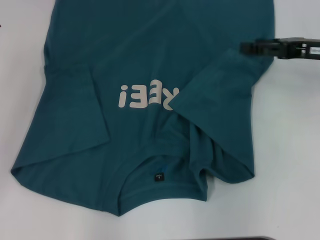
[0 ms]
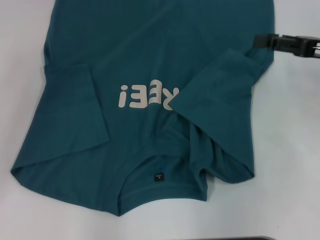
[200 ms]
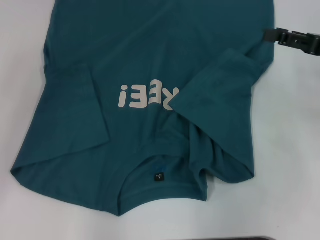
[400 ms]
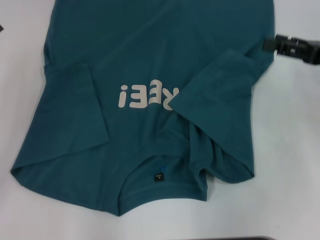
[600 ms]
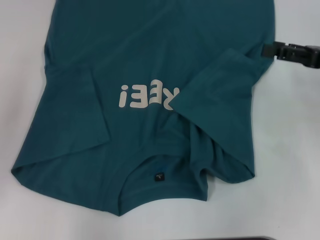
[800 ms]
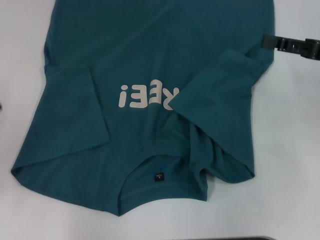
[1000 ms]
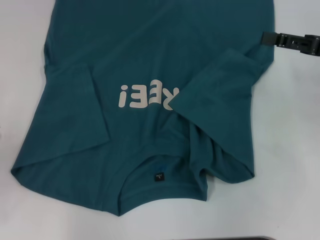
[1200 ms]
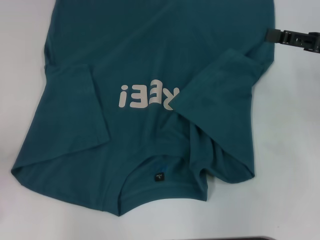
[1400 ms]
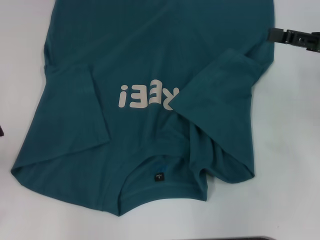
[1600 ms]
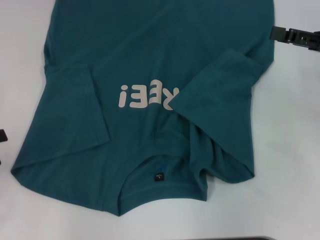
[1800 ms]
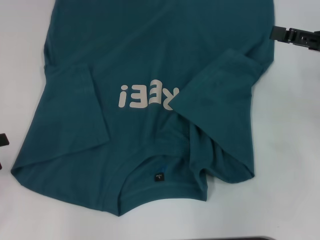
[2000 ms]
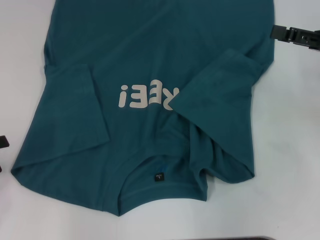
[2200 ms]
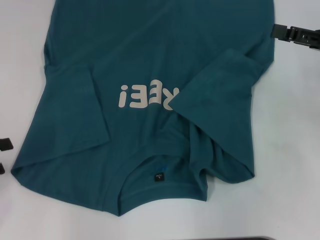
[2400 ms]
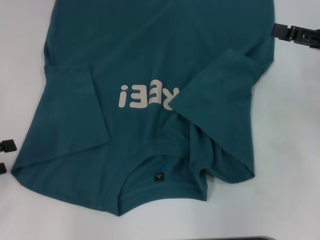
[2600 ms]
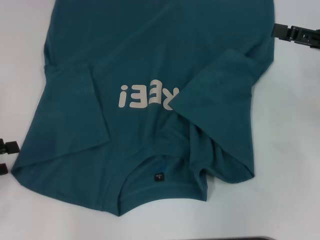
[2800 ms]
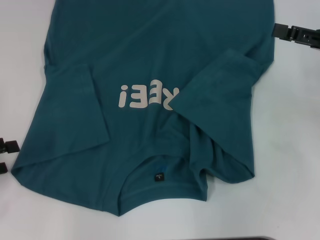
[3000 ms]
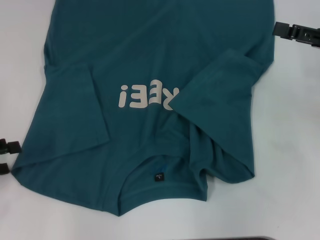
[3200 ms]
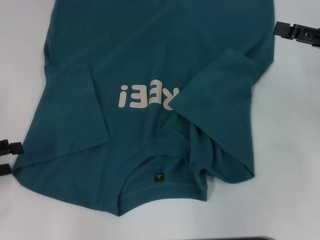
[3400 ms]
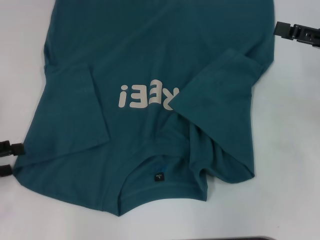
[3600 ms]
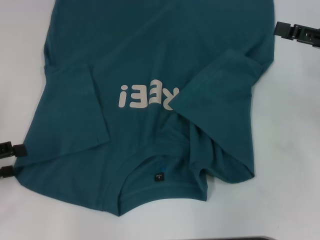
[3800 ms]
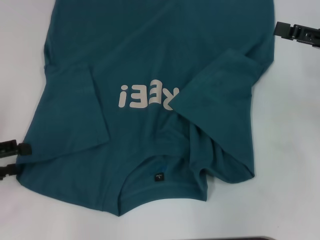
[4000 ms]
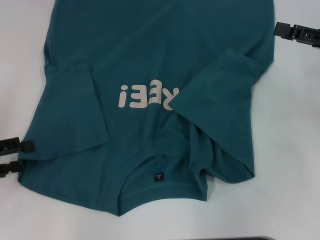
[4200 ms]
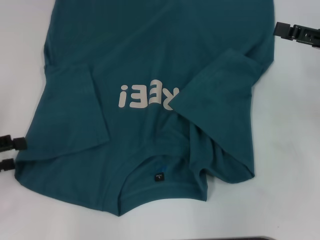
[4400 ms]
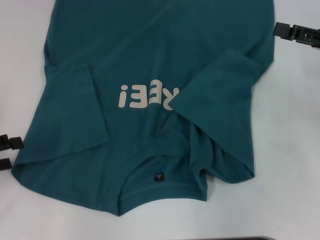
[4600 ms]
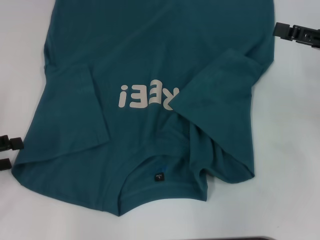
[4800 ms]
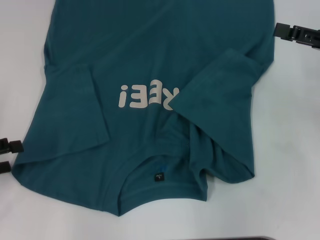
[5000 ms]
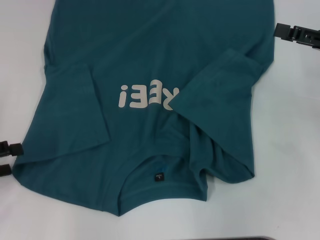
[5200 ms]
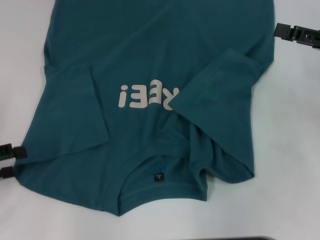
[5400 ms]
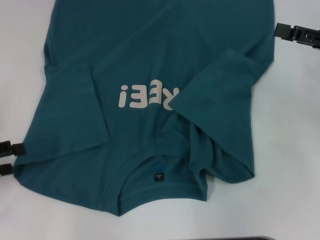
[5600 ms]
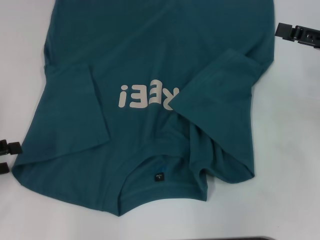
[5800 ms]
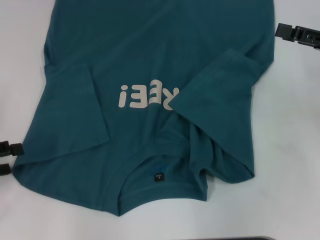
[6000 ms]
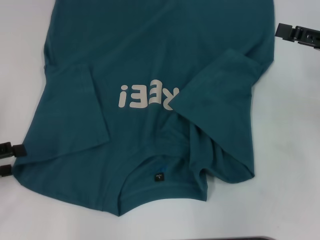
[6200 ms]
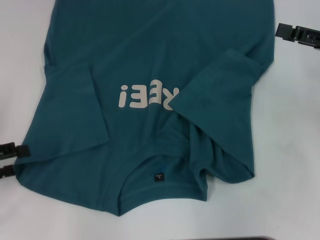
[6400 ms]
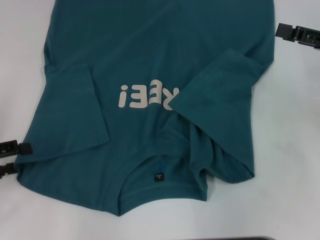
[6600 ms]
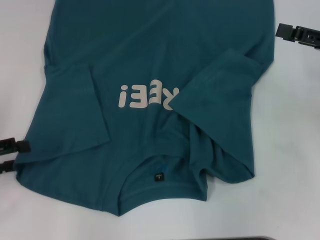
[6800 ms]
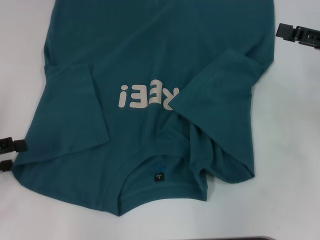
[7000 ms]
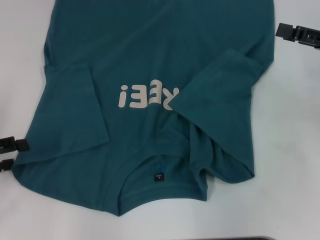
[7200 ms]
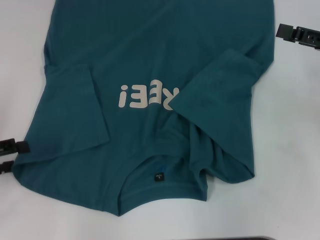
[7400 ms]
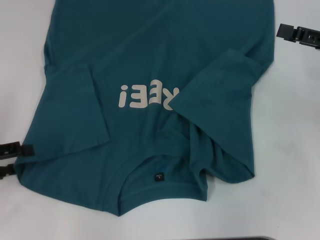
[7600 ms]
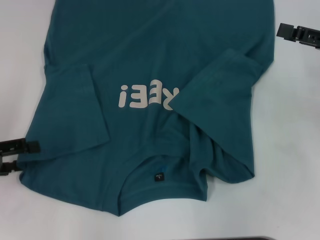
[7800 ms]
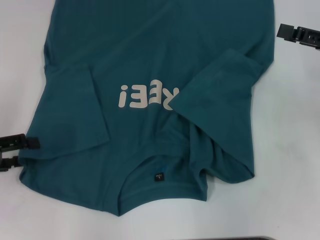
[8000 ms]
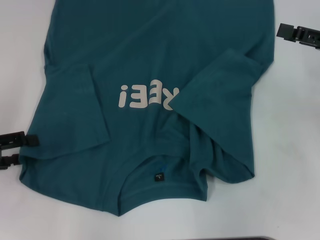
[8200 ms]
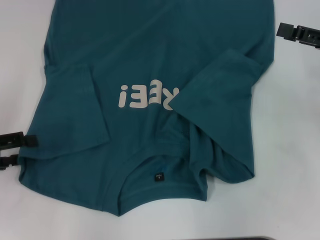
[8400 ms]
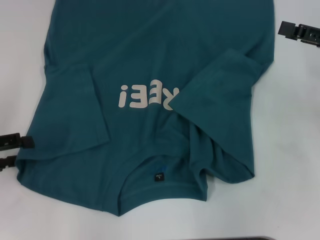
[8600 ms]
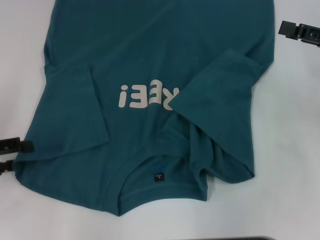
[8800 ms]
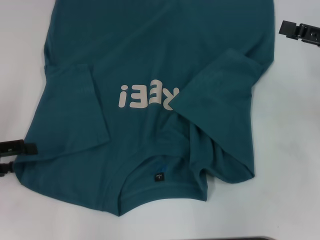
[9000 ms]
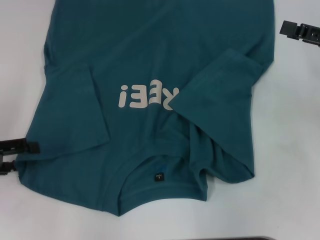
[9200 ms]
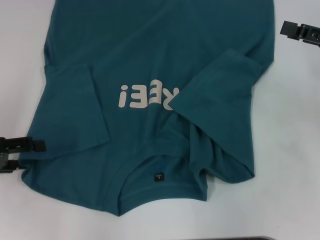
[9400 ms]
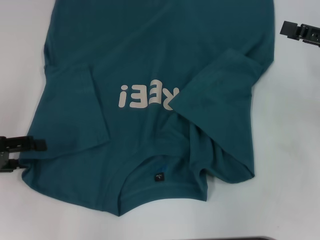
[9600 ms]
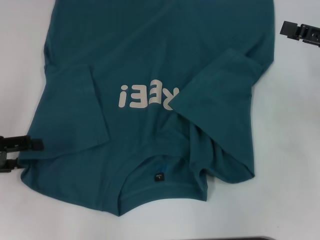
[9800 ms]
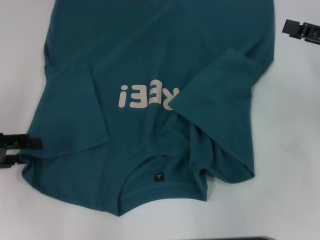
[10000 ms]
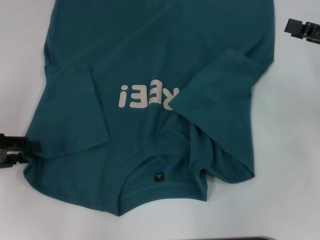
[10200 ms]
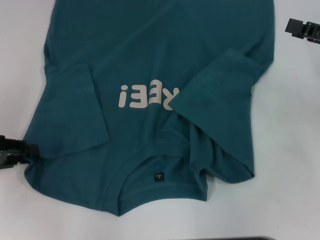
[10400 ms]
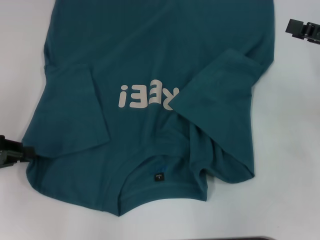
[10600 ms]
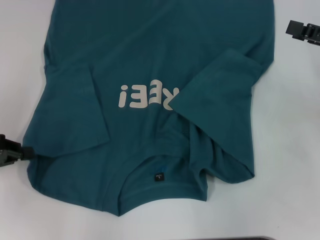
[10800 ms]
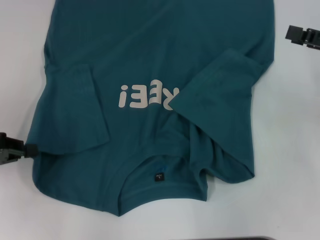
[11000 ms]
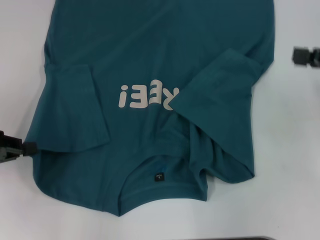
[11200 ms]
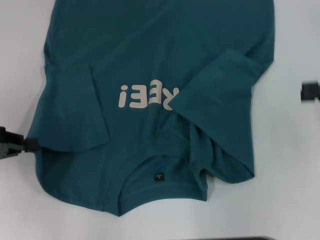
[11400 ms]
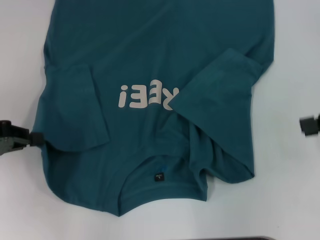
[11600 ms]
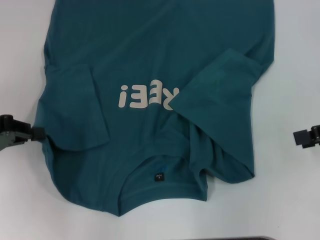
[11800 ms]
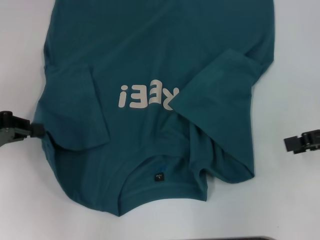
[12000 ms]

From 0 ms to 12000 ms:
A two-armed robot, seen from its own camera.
Step, from 0 ms to 11000 ms: Grab the bottom left corner with your left hand.
From 0 ms to 1600 ms: The left gripper ends up some 5 cm from where it was.
From 1600 ms to 4400 ms: The grippers make only small movements.
From 4400 ms to 6000 ms: Both grippers stay about where they are.
From 7600 ms to 9000 ms: The grippers move only a little.
From 9000 ms to 10400 ms: The left gripper closes.
From 10400 ms to 12000 ms: The left gripper closes up.

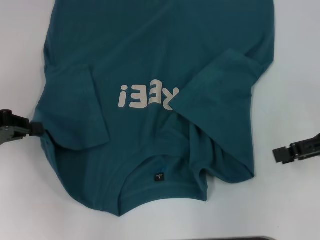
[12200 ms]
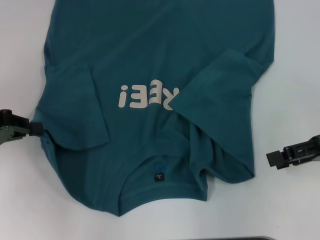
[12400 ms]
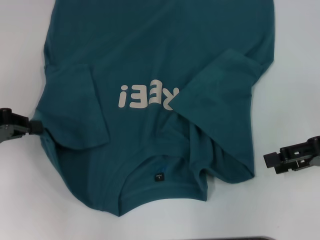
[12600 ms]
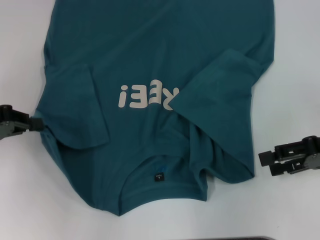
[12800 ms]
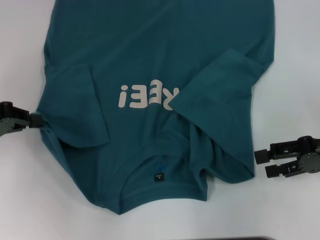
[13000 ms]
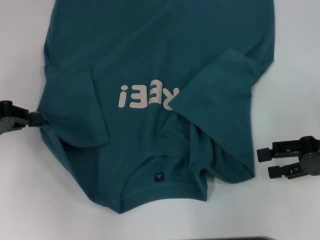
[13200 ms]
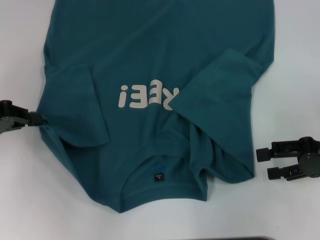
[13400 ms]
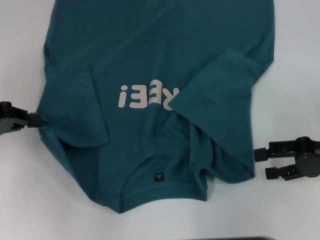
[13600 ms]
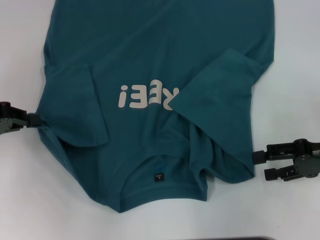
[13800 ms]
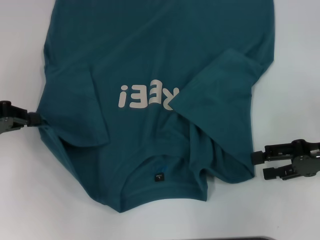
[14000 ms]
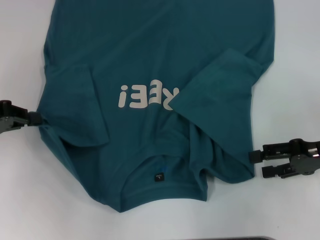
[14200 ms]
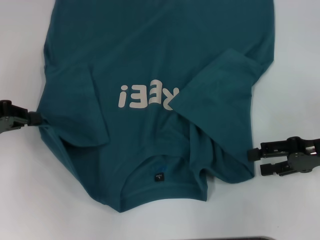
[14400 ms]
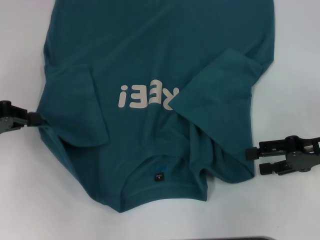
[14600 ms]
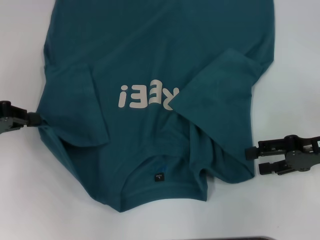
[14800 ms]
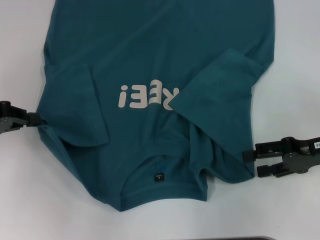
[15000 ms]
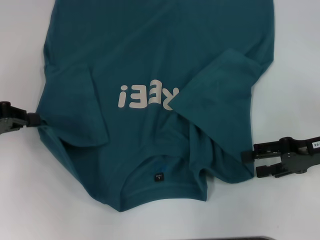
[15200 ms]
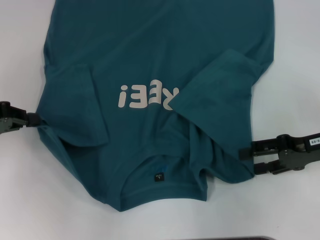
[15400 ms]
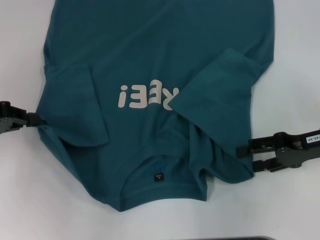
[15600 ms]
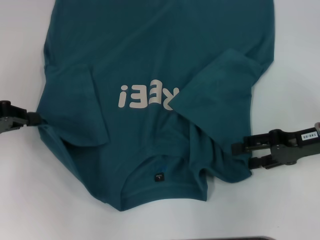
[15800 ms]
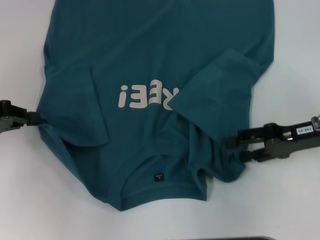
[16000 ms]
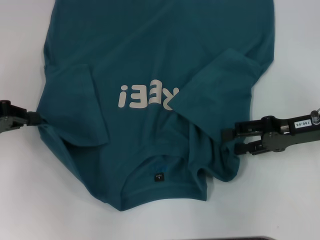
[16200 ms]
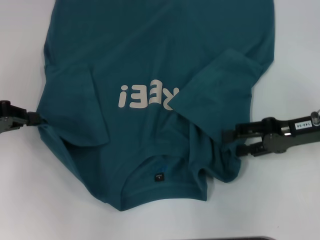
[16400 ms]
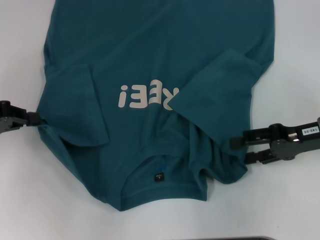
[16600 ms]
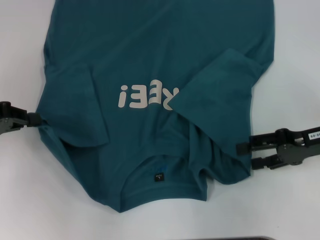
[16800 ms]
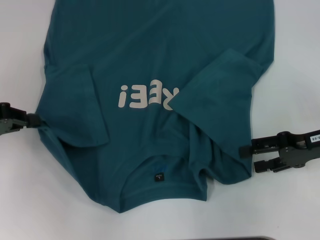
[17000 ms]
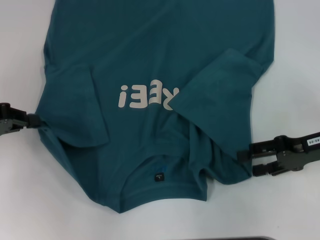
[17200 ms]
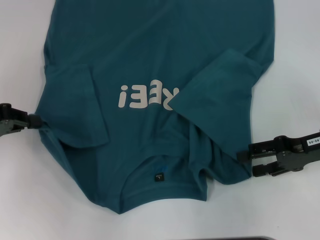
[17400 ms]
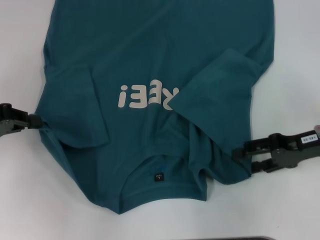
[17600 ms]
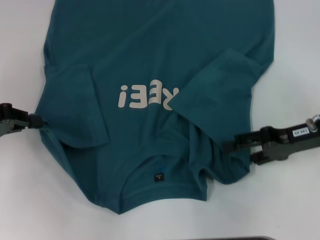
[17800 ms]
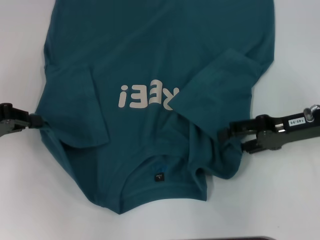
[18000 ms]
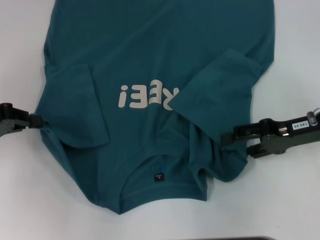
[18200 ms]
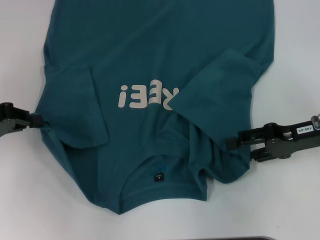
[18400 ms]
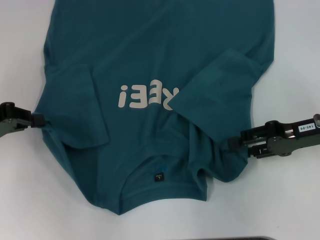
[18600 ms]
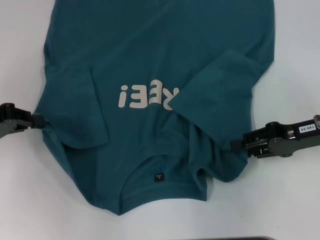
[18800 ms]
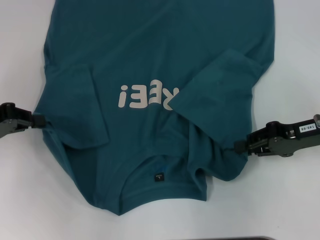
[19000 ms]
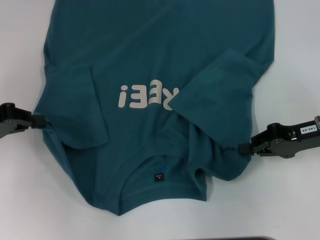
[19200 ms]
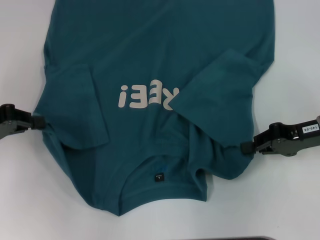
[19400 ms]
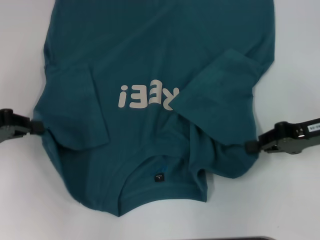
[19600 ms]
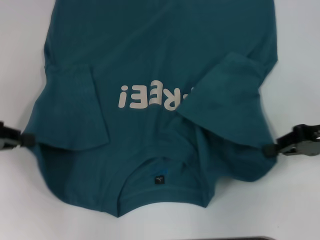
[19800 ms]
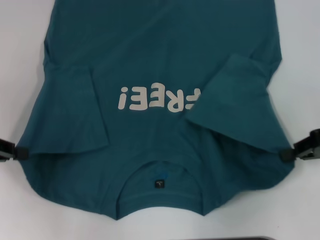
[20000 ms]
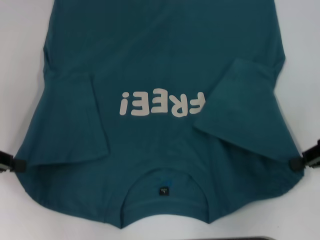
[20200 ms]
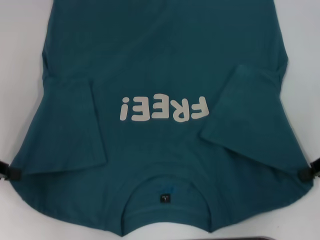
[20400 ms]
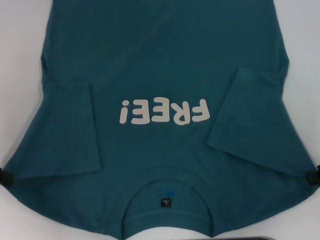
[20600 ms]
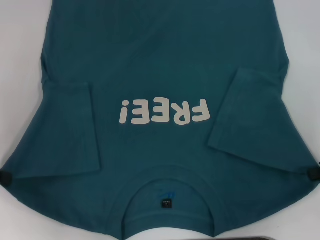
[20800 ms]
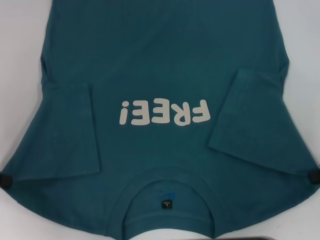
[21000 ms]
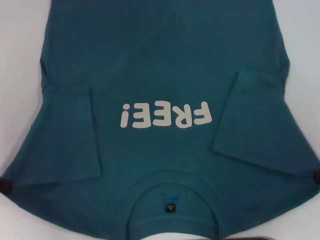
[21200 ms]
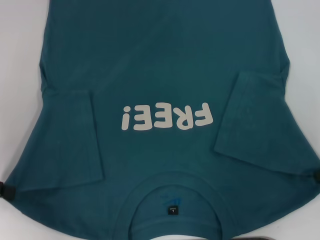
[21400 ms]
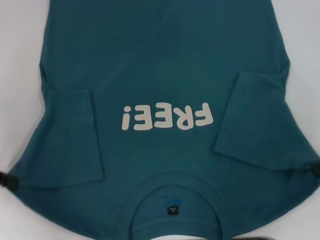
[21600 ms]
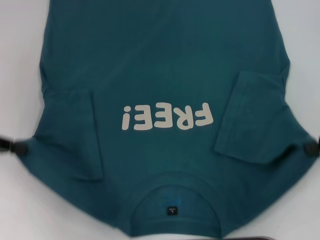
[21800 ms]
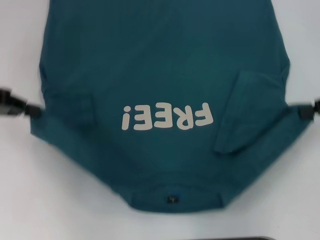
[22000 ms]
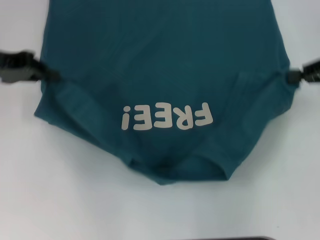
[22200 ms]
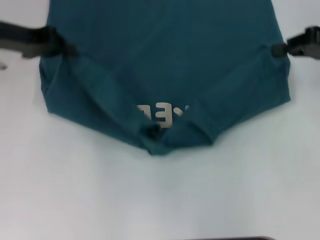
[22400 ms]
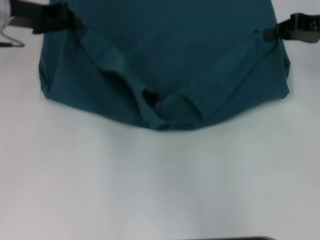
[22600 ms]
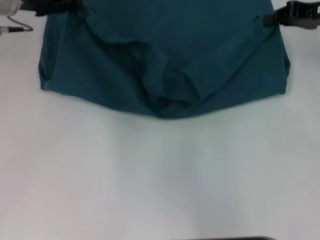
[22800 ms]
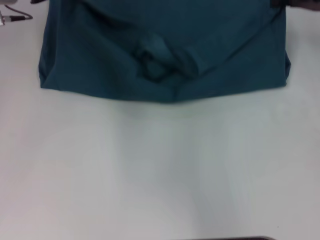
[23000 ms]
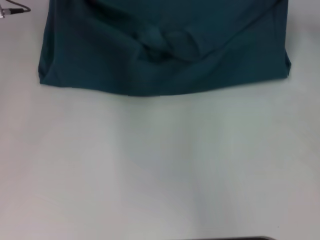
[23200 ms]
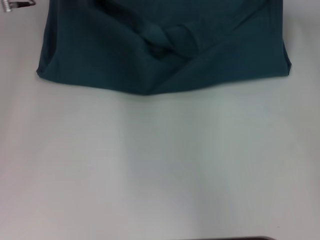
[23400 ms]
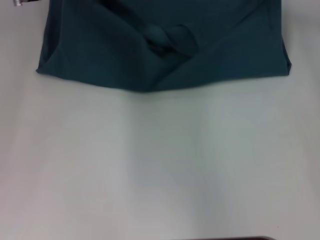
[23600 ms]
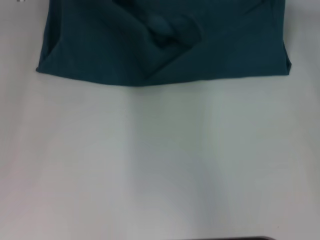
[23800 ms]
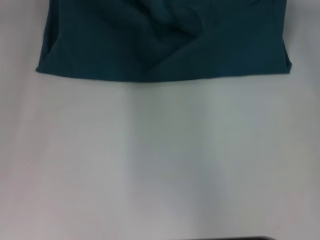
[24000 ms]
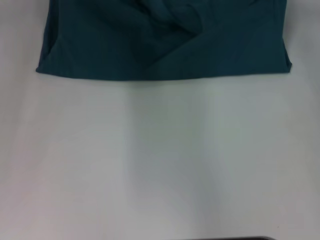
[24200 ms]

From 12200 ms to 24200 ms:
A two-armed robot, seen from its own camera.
Step, from 12200 ms to 20000 ms: Grab the bottom right corner with your right hand.
From 12200 ms to 13800 ms: The right gripper ends up approximately 5 cm from where it was.
From 13800 ms to 16600 ms: The grippers move only a little.
From 16600 ms to 18200 ms: The grippers make only small movements.
From 18200 ms to 19800 ms: The right gripper closes up.
From 19800 ms to 21200 ms: The right gripper heads to the right, covering roughly 5 cm.
From 21200 ms to 22600 ms: The left gripper travels forward and to the right by some 20 cm. Meanwhile the right gripper shifts about 15 cm forward, upward and to the left.
From 22600 ms to 24200 ms: The grippers both shift forward by about 5 cm.
